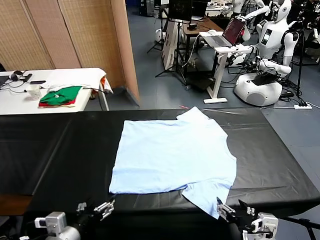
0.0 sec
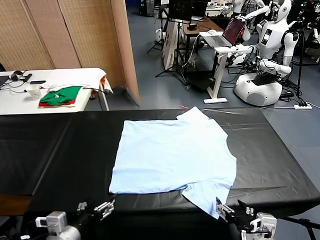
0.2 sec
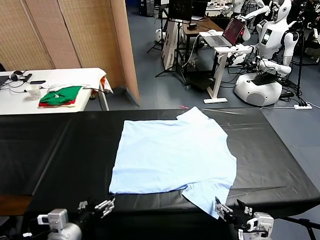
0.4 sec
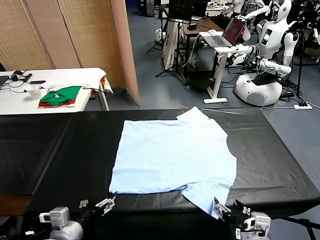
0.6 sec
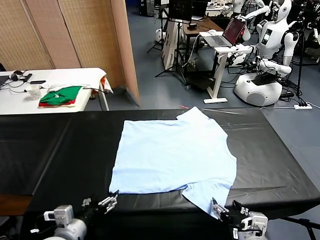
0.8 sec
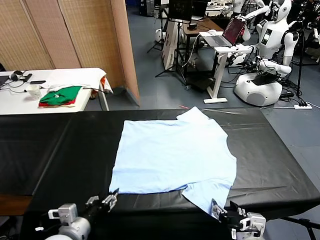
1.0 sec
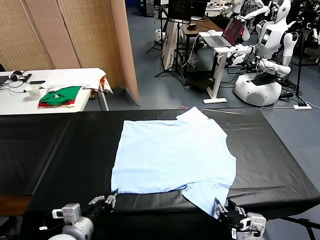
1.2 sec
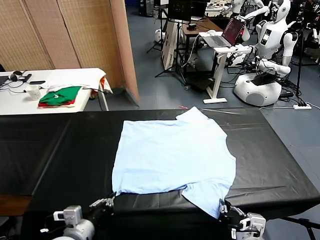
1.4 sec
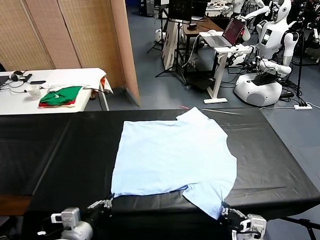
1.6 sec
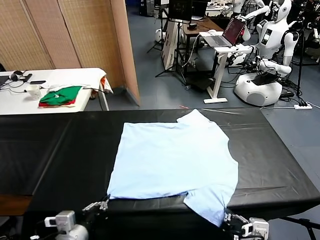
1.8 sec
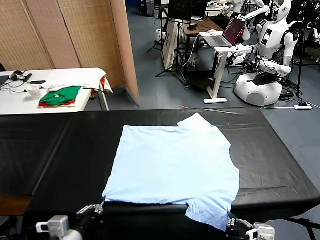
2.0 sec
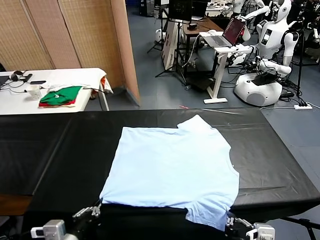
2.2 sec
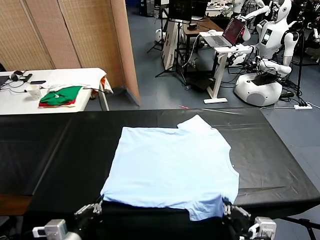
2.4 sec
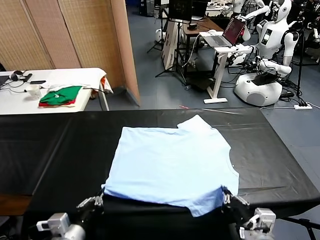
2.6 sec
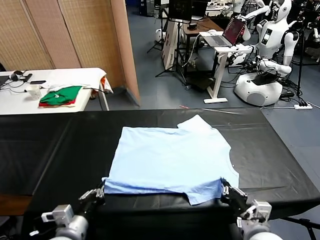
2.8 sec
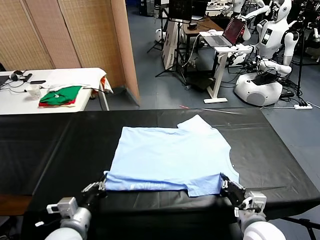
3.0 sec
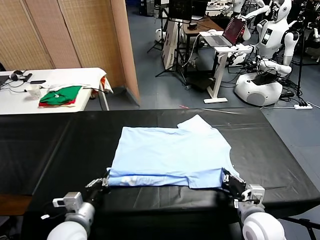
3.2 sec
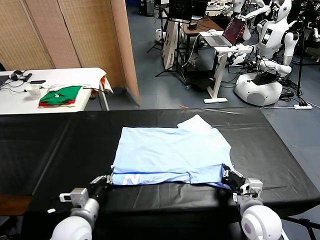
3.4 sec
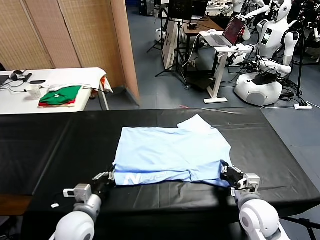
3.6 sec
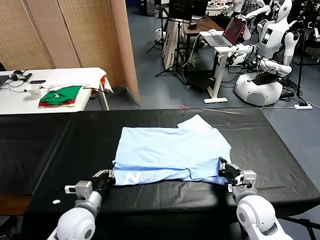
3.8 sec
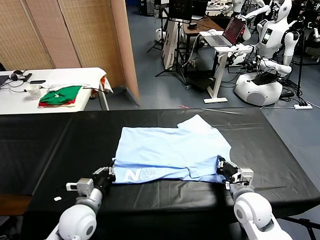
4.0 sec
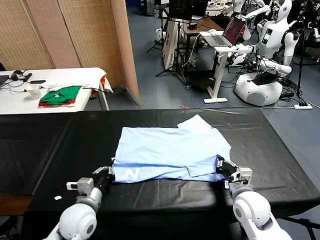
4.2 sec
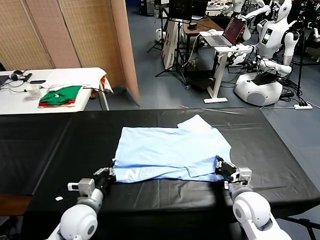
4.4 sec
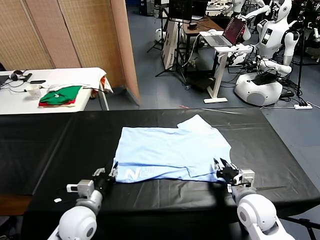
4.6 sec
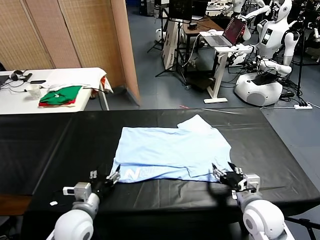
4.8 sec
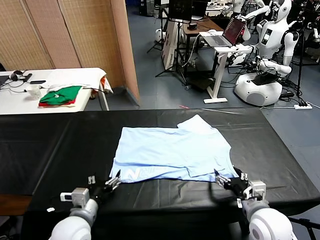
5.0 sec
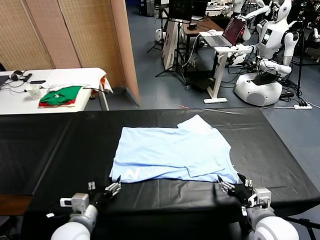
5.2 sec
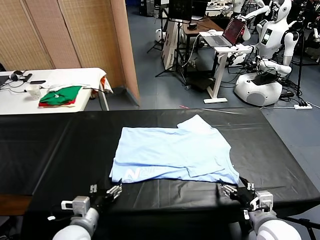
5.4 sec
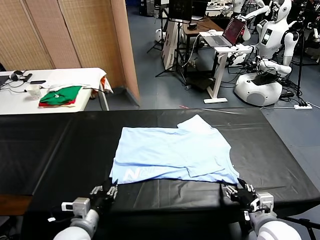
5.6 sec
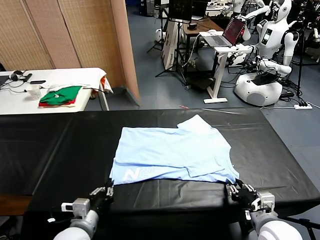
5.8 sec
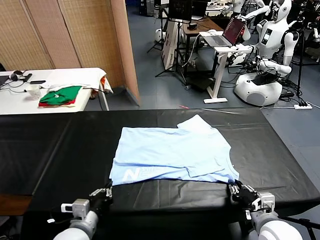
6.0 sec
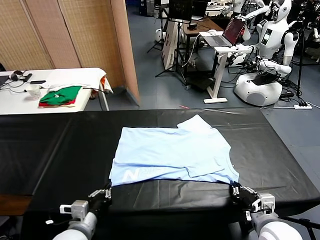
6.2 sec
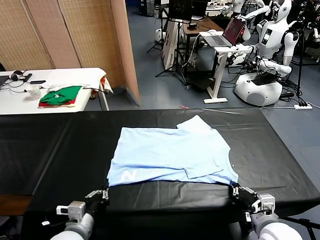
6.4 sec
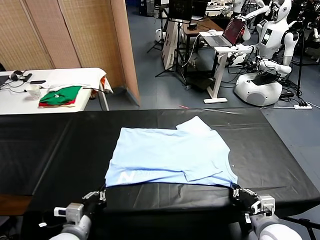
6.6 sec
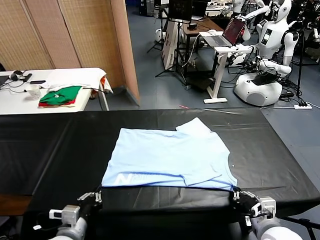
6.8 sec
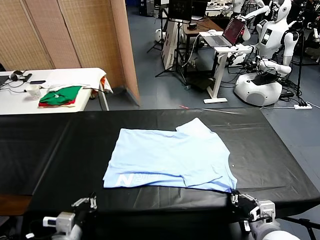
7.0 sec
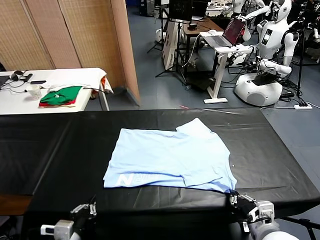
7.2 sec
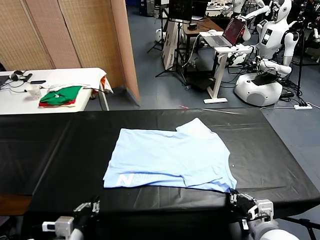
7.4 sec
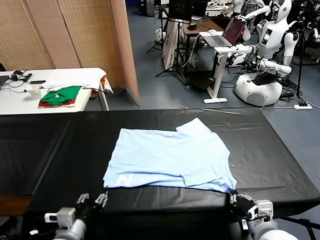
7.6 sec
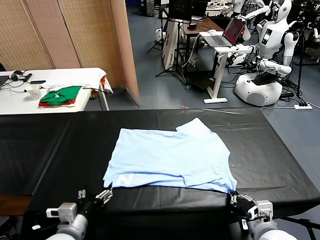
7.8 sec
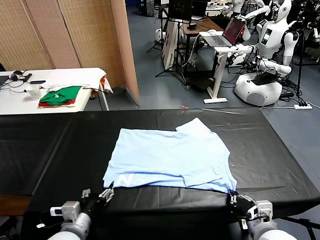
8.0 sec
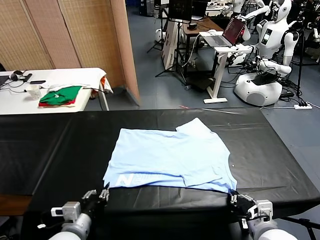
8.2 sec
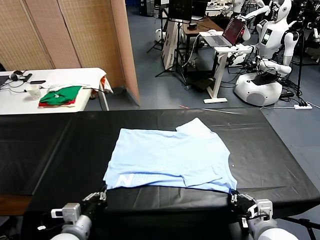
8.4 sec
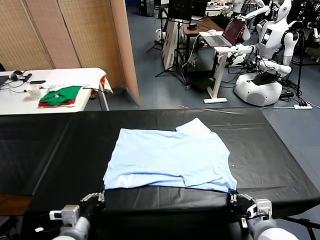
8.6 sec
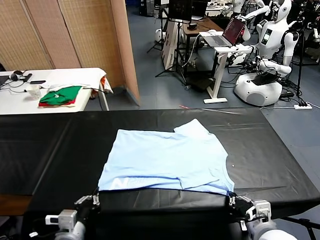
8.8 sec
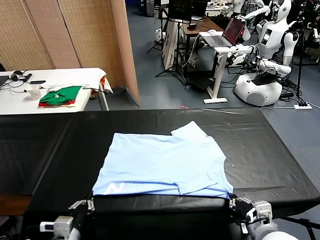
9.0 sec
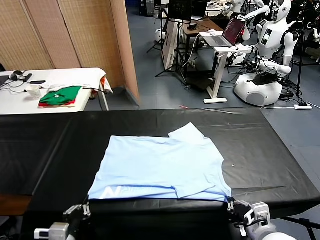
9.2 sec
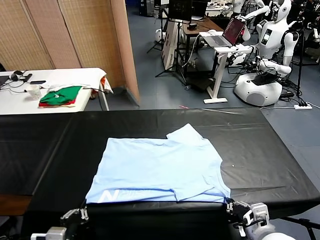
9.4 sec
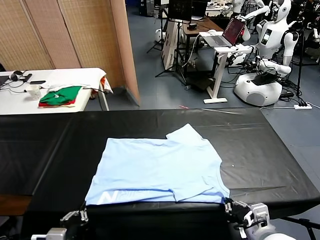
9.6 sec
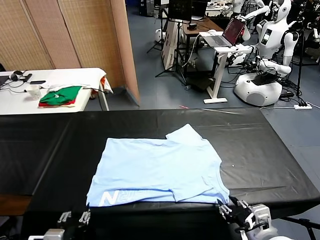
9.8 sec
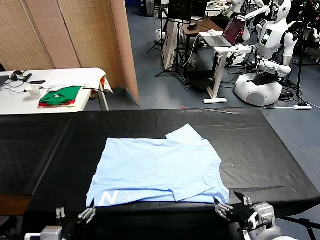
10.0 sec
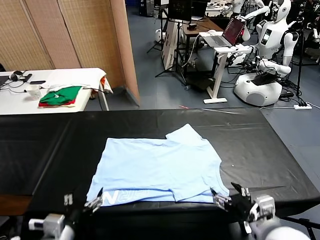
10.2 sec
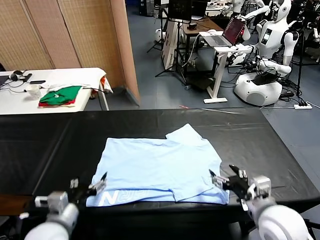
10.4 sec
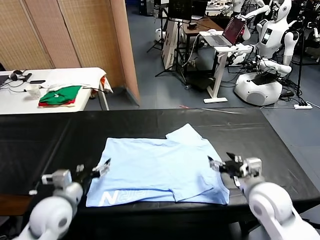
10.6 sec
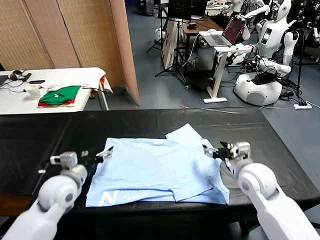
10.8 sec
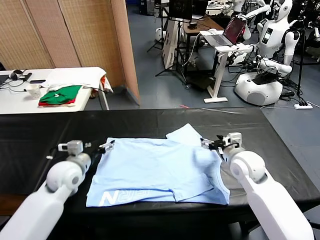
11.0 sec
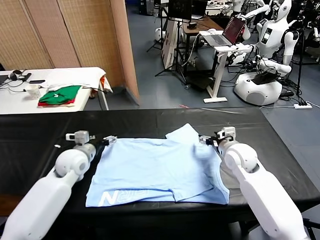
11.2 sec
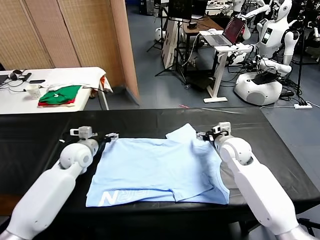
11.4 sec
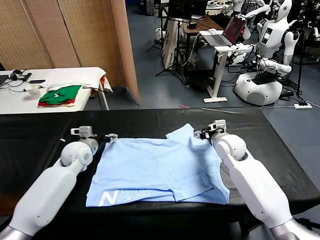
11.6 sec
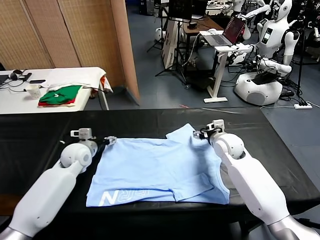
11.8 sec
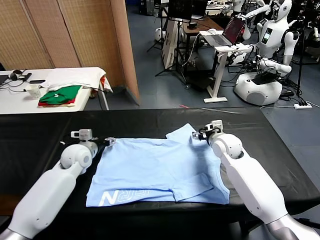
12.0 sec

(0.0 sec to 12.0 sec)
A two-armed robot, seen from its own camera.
Task of the whole recording: fold and organize the clothes.
Step, 0.0 sec - 1.4 sec: use both grippers simultaneously to clamp the lower edge of the clothing fabric.
Step, 1.6 sec - 4.6 sec: use both grippers to drag the lower edge of the fabric forward and fold it over the upper edge.
Step, 5.0 sec - 9.8 sec: Drag the clothes downward with both gripper.
1.6 sec - 3.0 sec: The right gripper moves forward and downward, about 15 cm.
3.0 sec - 4.4 sec: The left gripper is displaced forward by about 5 cm. Meanwhile the right gripper opens.
4.4 sec - 6.0 sec: The two grippers go some 5 cm backward. The left gripper opens and closes again. The right gripper closes.
6.0 sec - 7.6 sec: The left gripper opens.
7.6 sec - 9.0 sec: The left gripper closes its fingers.
9.0 sec - 10.4 sec: The left gripper goes some 10 cm forward, and opens up. The right gripper shifts some 15 cm forward, and opens its fingers.
10.4 sec - 12.0 sec: The grippers both shift forward by approximately 20 cm.

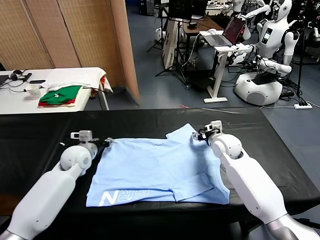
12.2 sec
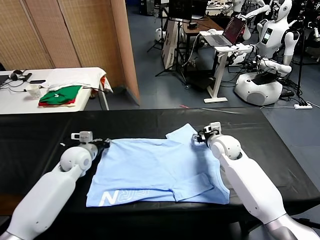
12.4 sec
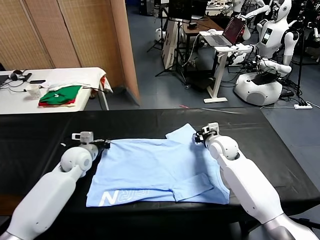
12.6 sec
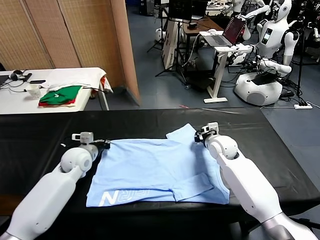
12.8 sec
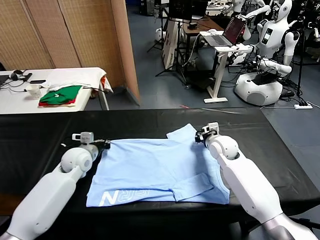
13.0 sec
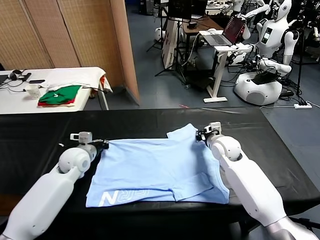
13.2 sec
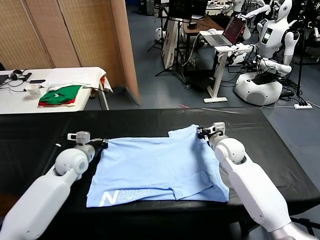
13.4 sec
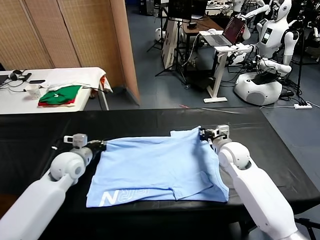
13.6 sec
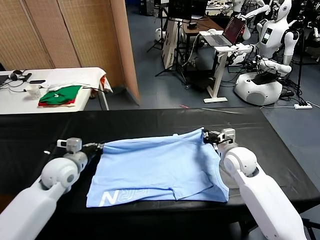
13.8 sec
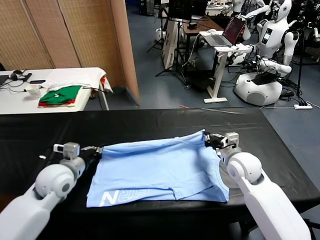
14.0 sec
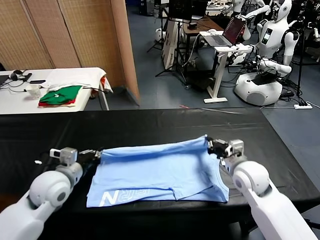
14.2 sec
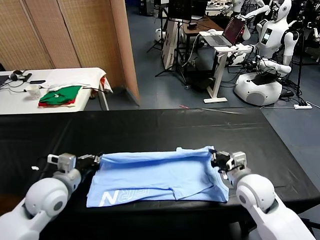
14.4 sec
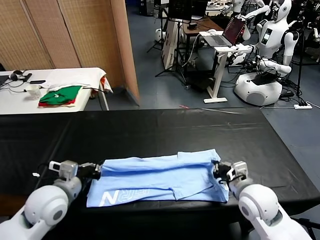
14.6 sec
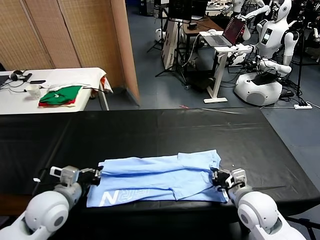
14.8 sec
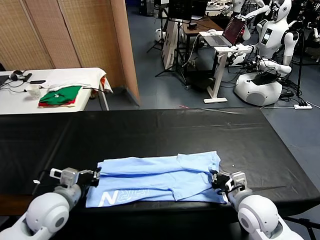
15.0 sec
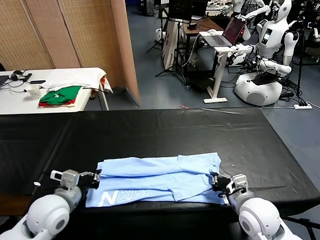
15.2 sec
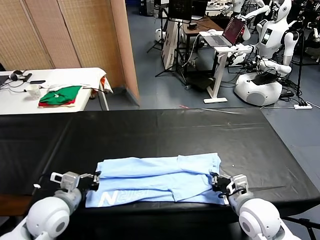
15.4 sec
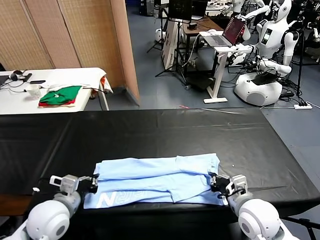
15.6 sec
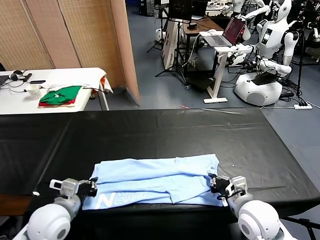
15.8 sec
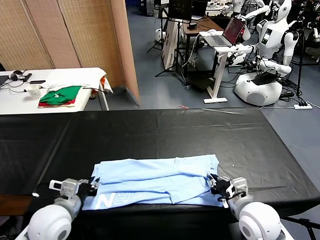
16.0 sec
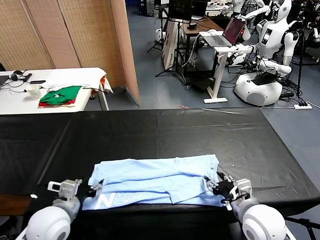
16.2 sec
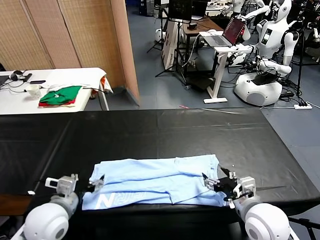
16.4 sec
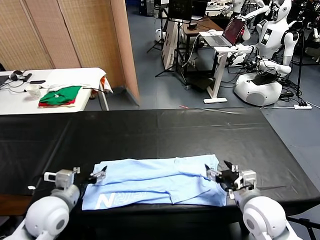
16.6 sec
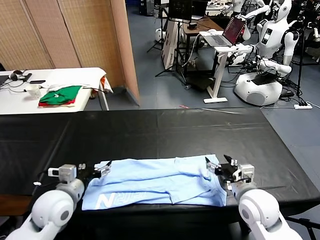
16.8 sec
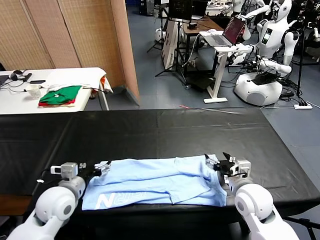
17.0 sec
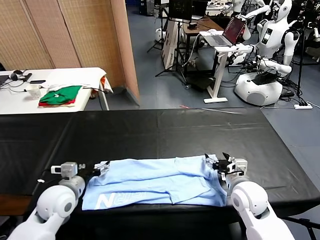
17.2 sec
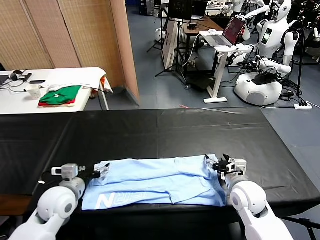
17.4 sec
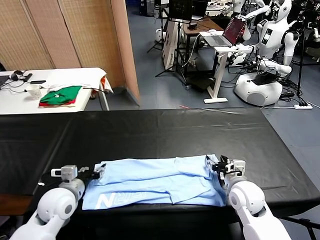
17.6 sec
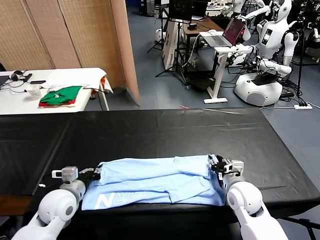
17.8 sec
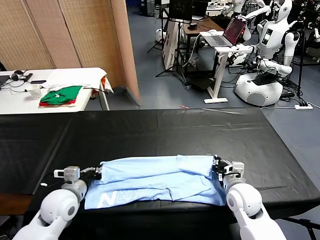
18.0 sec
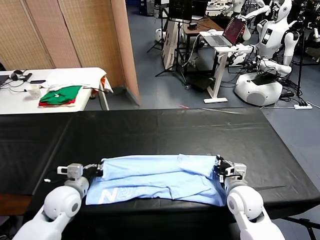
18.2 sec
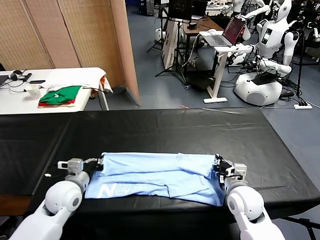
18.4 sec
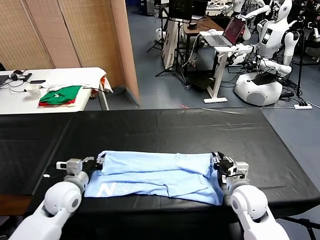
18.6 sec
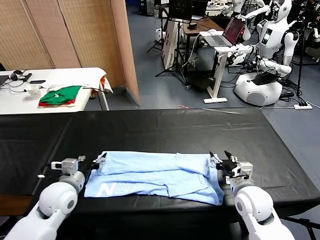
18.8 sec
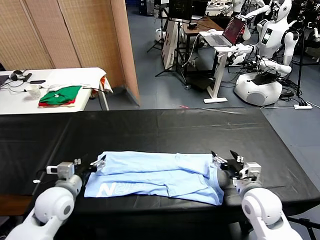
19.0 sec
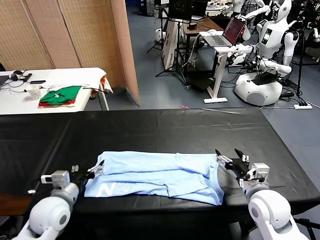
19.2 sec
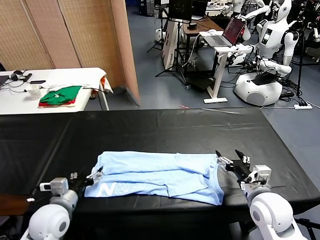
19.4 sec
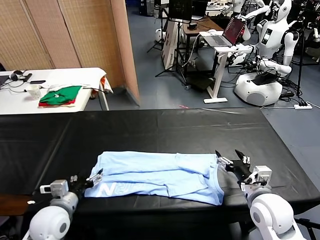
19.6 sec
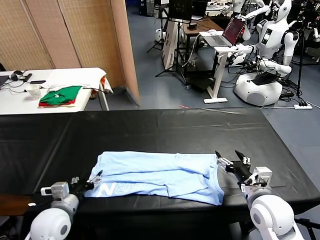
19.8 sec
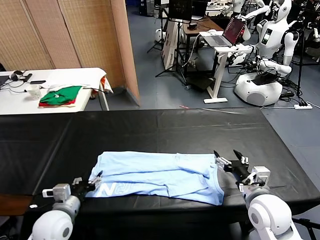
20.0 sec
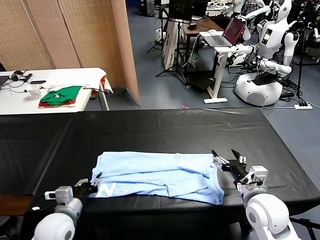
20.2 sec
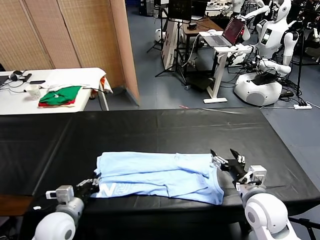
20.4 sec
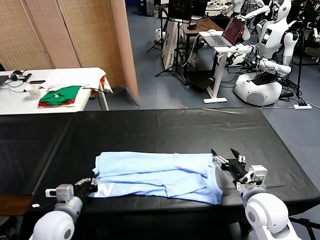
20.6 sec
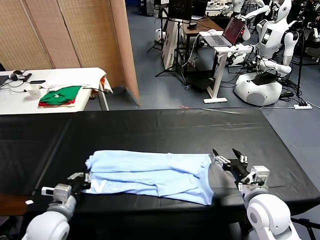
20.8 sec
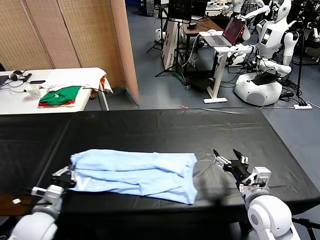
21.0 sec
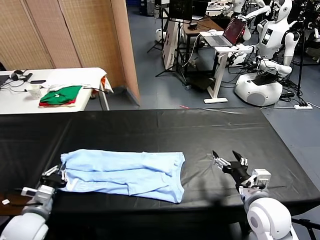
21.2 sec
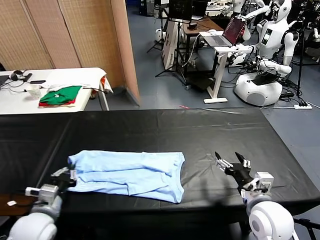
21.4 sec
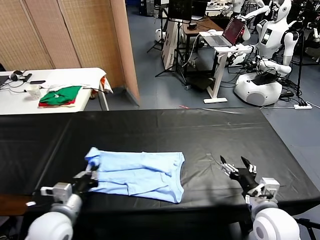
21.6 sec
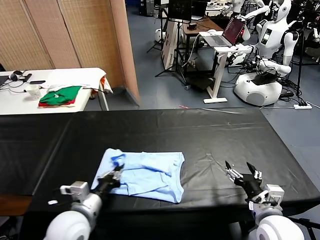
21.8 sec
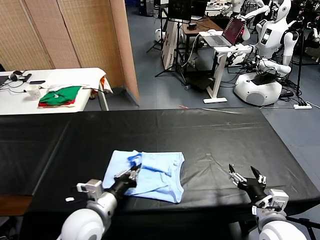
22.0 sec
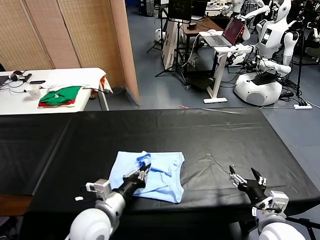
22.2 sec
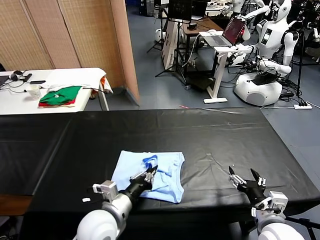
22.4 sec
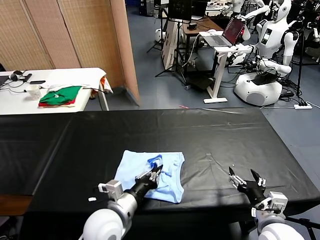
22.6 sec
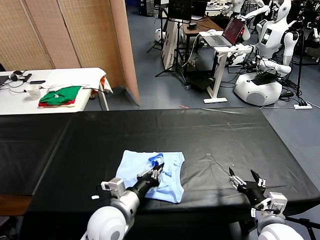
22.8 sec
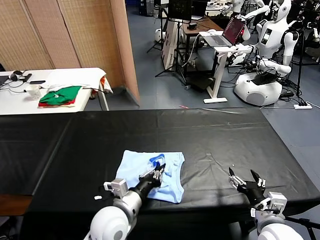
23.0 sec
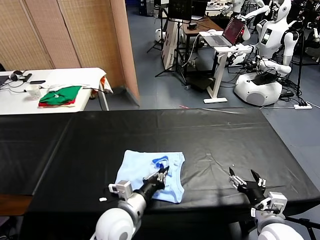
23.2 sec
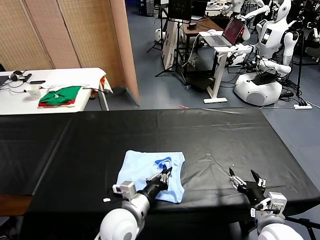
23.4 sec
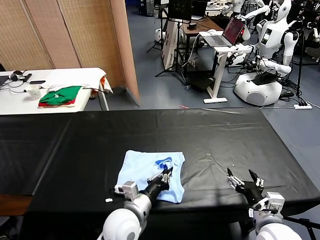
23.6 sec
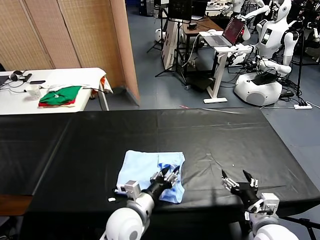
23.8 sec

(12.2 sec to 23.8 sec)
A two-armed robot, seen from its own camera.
Task of the whole recording: fold and organize the clothes.
Step, 12.8 sec - 16.2 sec: use both grippers to drag the upper edge of the fabric backward and fold it over the lower edge.
Step, 16.4 sec - 20.4 sec: use the left gripper to clamp the left edge of the fabric.
12.2 sec - 13.6 sec: Both grippers move backward, approximately 5 cm. The left gripper closes its fingers. The right gripper closes up.
13.6 sec - 15.0 sec: Both grippers travel together backward, about 15 cm.
15.0 sec - 16.6 sec: The right gripper opens its fingers. The left gripper opens up.
16.6 sec - 18.0 sec: Both grippers move downward, some 5 cm. The right gripper closes up, while the left gripper closes up.
18.0 sec - 19.4 sec: The right gripper goes approximately 10 cm upward and backward, and opens up; the left gripper opens.
19.4 sec - 21.0 sec: The left gripper closes up.
21.0 sec - 22.4 sec: The right gripper moves backward, approximately 5 cm. Meanwhile the left gripper goes approximately 20 cm to the right.
22.4 sec - 23.8 sec: The left gripper heads to the right, covering roughly 5 cm, and opens.
